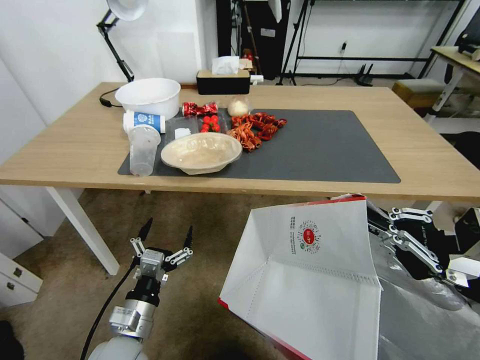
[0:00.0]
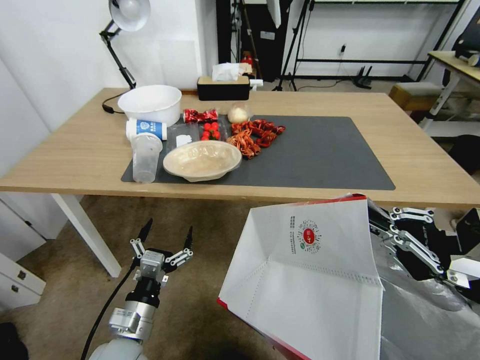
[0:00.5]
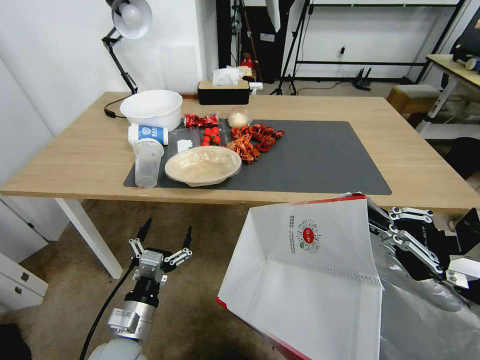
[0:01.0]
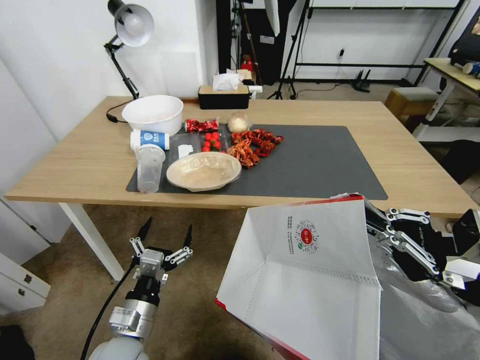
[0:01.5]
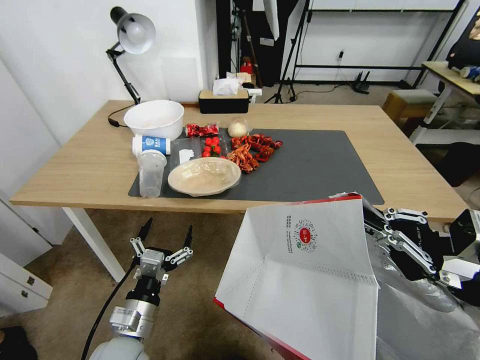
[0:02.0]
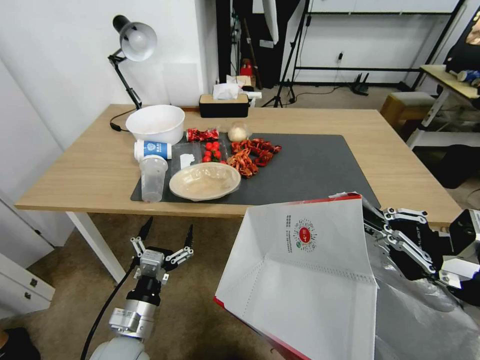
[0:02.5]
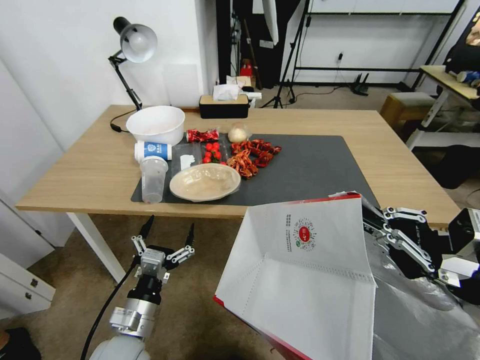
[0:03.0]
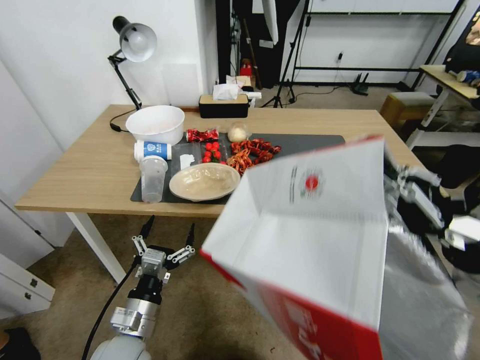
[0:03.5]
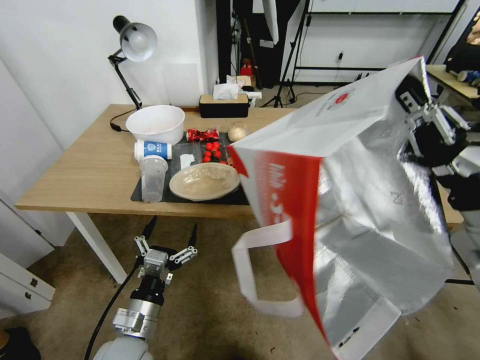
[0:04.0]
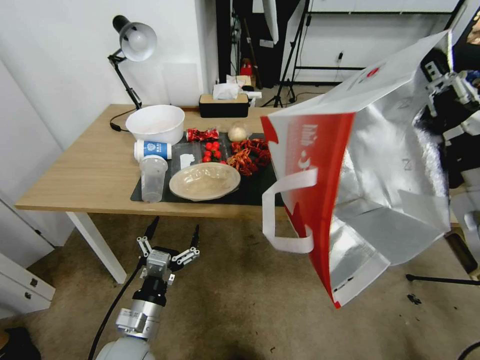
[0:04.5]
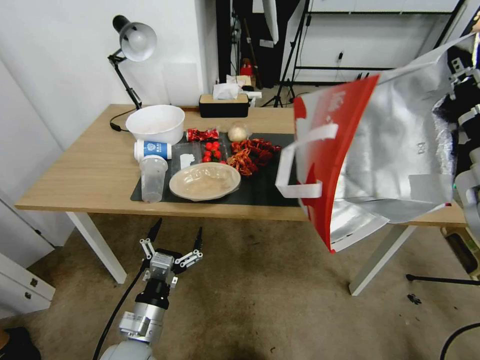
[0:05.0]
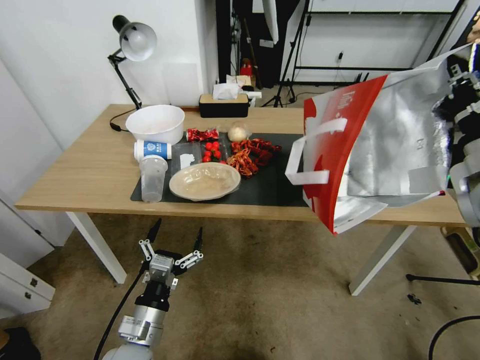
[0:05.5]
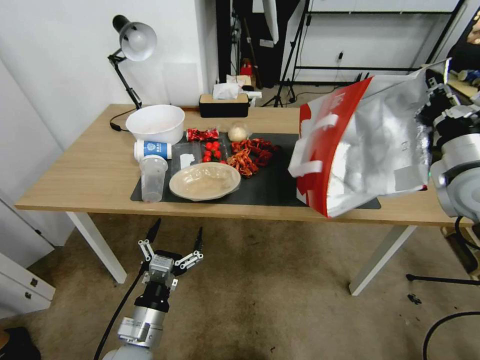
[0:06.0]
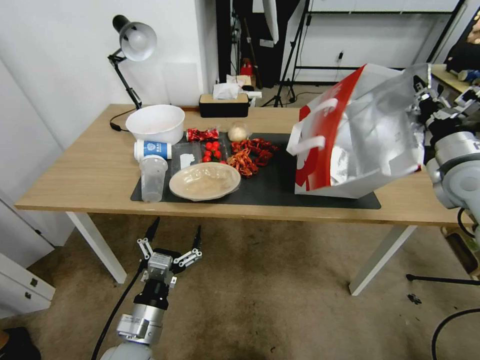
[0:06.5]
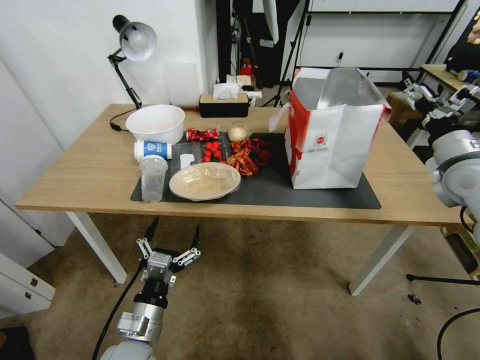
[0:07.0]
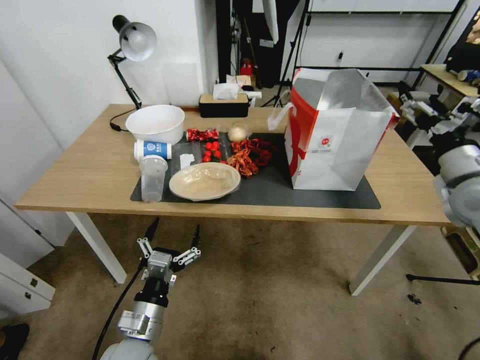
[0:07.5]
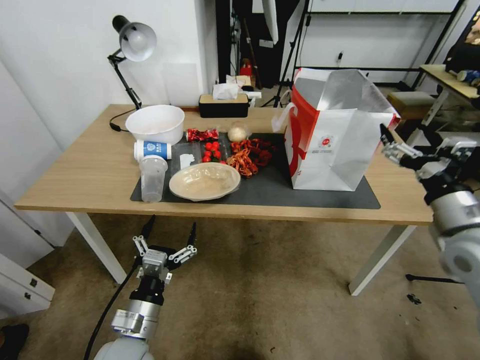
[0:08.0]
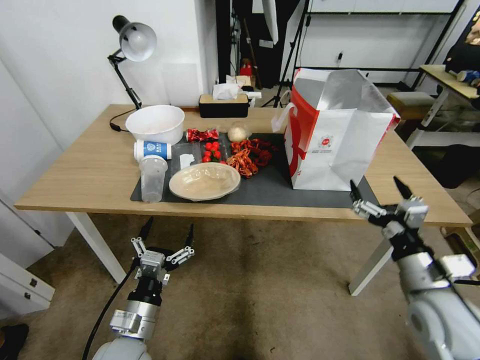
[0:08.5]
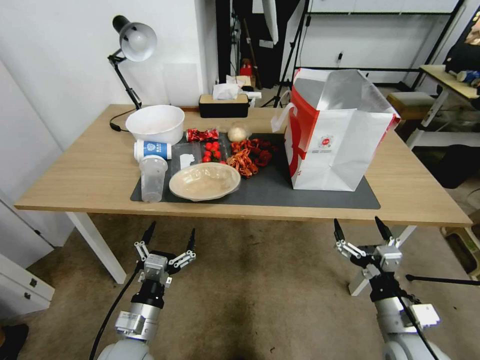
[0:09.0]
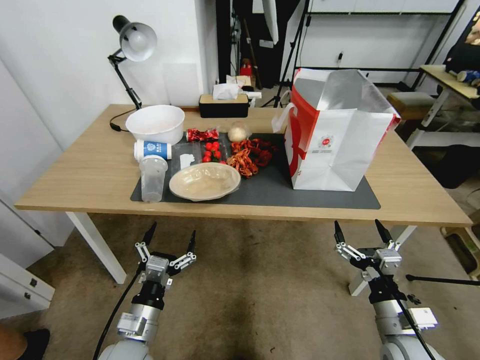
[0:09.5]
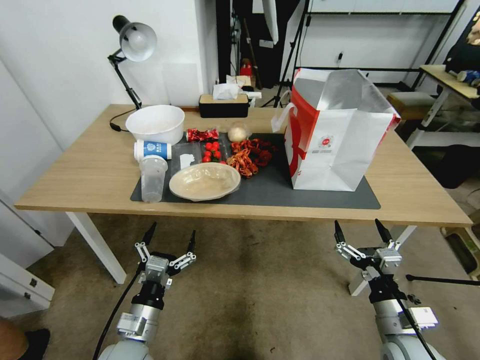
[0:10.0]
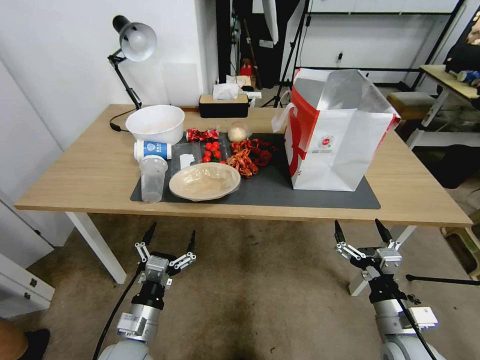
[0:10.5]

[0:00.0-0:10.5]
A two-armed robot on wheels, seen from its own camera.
Task of the whole recording: Pick up the food delivery bag from the floor and place it on the table.
0:02.0 to 0:04.0: The right gripper travels upward by about 5 cm.
0:04.0 to 0:06.5: The right gripper heads forward and to the right, covering roughly 20 cm.
0:06.5 to 0:08.5: The right gripper goes roughly 25 cm backward, downward and to the left, and opens up.
0:08.5 to 0:10.5: The right gripper is displaced downward and backward by about 10 cm.
